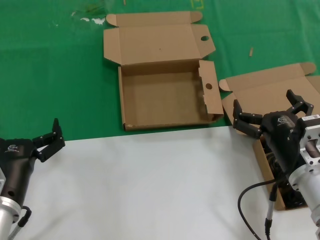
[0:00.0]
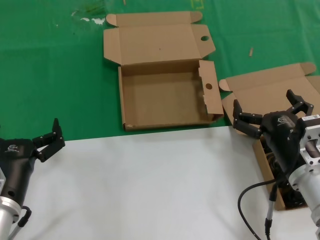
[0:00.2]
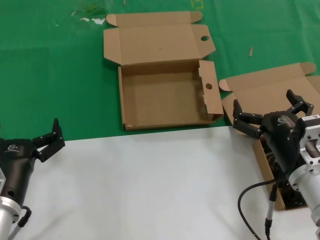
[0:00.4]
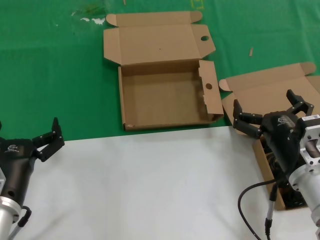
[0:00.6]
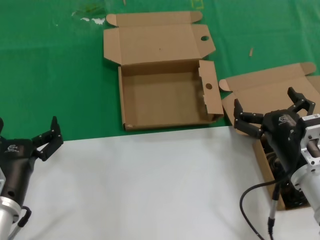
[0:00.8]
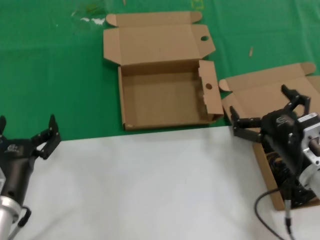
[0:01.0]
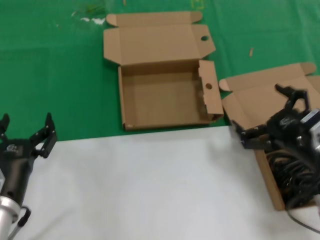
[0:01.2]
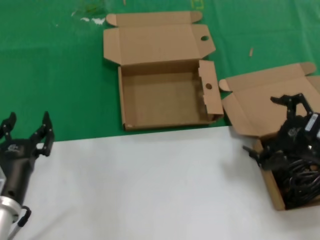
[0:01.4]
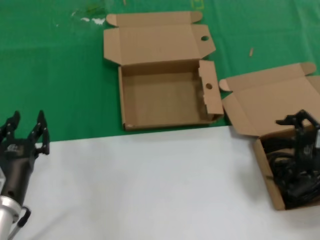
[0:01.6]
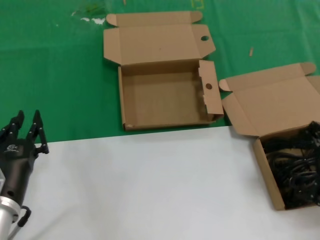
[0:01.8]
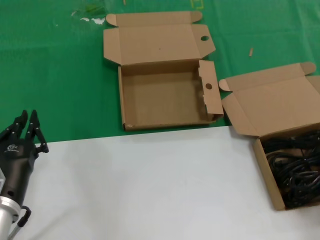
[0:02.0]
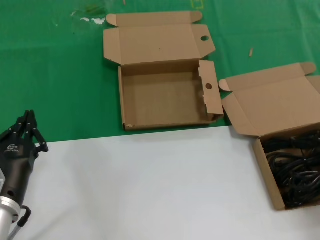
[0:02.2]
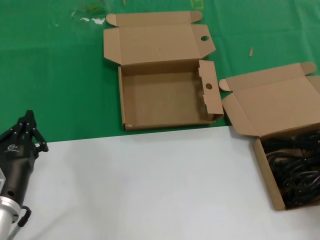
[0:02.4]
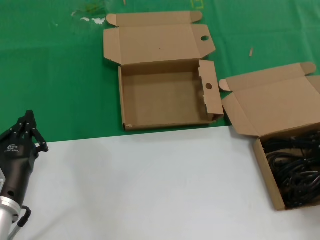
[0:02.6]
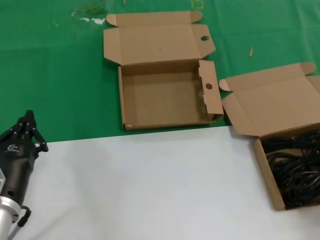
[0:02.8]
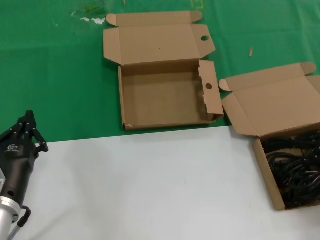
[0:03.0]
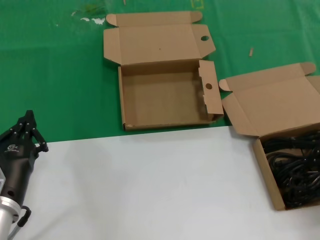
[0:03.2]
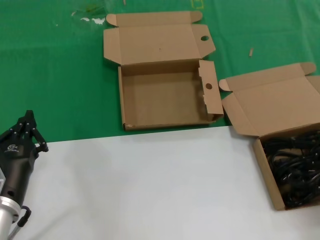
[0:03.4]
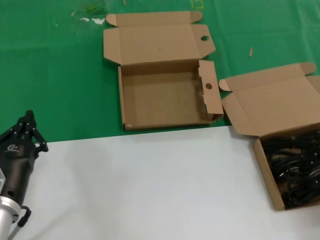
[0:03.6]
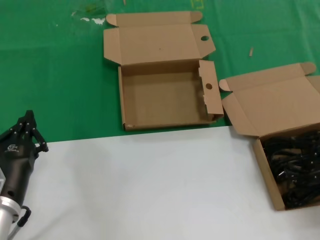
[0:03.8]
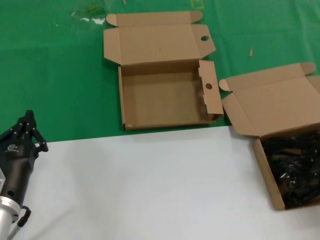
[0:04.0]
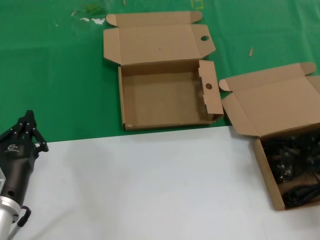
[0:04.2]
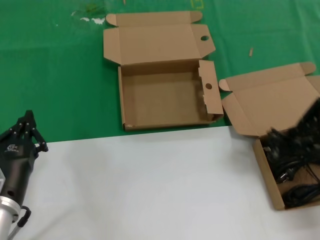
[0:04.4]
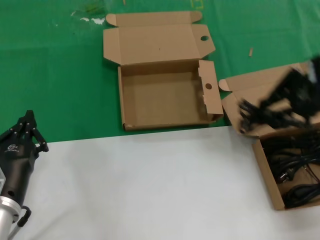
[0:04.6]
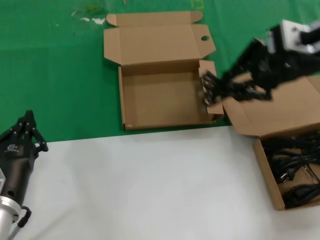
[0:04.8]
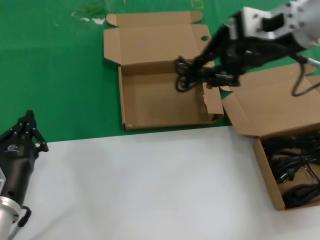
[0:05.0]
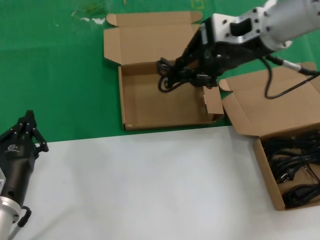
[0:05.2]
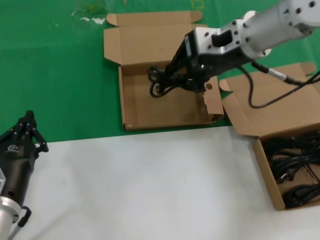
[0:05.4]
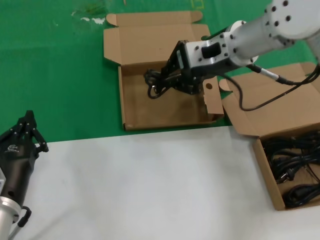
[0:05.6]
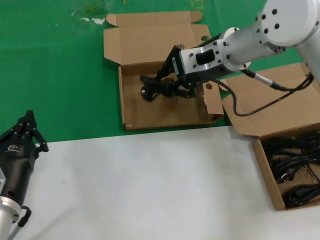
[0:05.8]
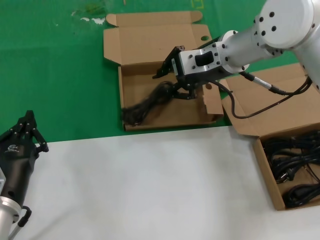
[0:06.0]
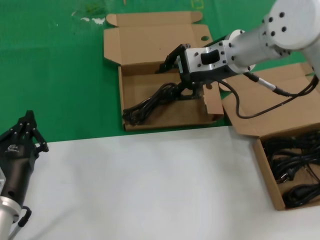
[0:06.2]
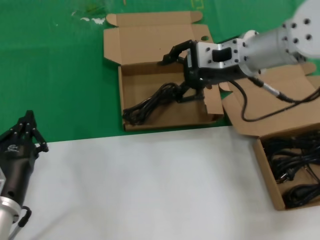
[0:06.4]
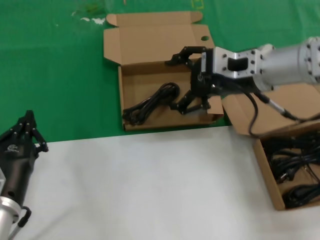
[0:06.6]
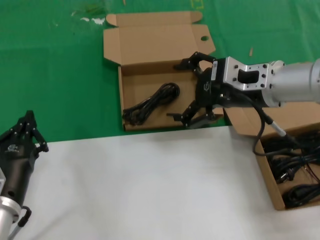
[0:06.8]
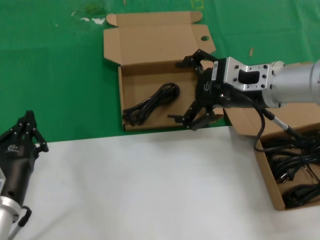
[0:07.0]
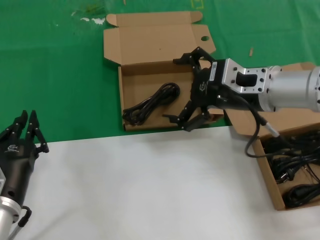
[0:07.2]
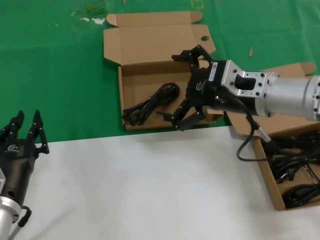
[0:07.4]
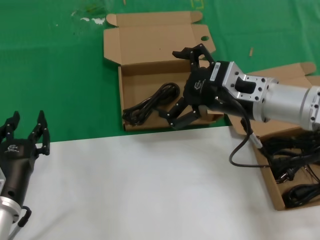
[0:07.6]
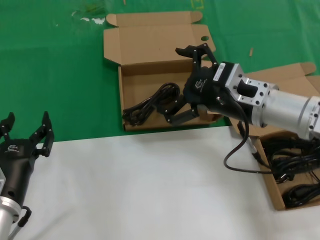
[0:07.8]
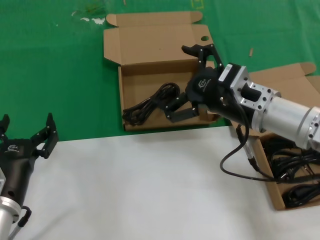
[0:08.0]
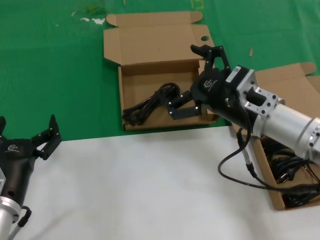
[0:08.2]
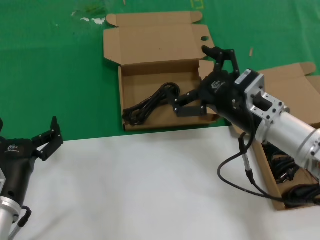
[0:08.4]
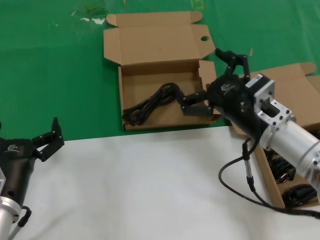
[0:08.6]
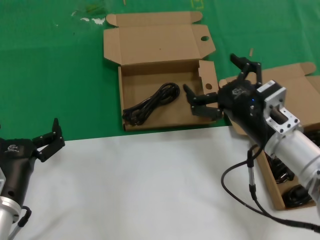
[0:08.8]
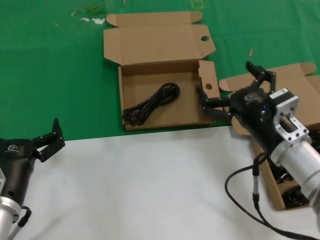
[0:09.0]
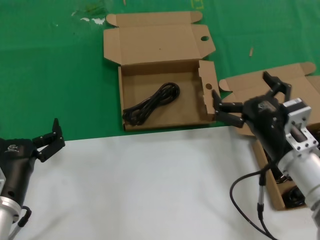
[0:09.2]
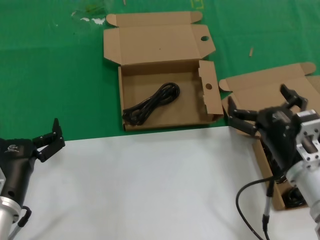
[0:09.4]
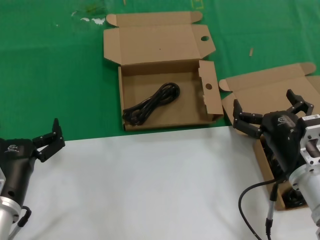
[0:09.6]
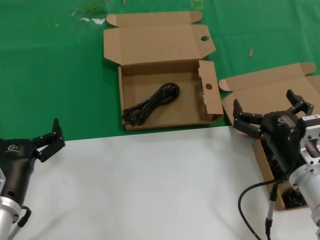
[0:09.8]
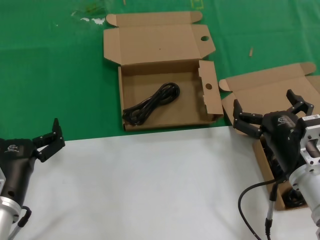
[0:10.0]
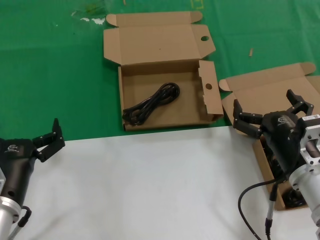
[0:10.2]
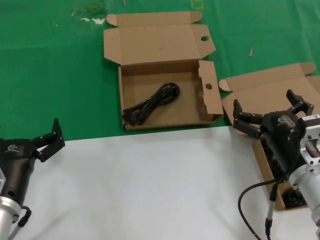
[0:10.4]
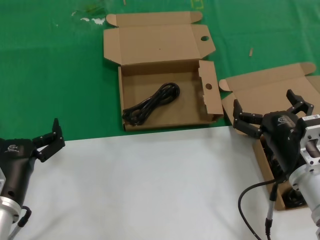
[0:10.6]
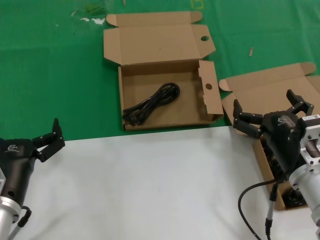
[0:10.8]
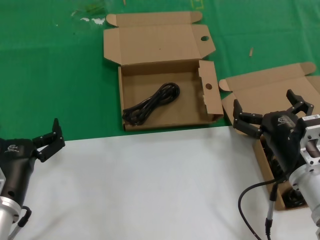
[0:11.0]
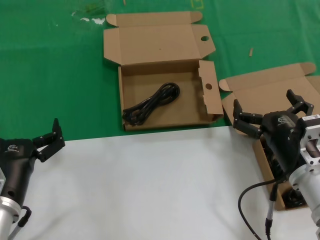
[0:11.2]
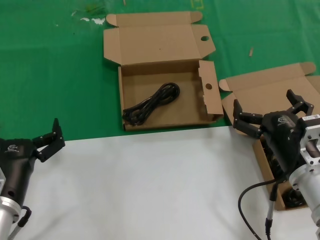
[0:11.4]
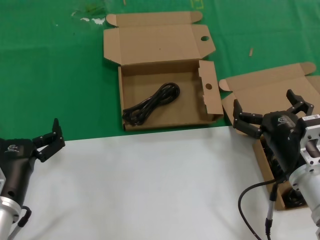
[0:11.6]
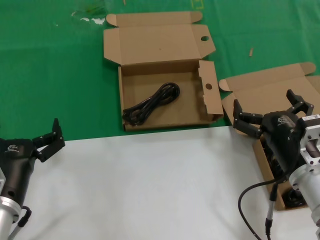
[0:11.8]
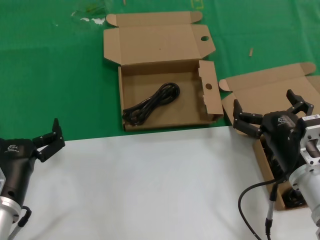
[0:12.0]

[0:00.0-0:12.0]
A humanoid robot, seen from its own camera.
Task of the whole recording: take the parts from the box containing them and put them into an empty box.
Step, 0:00.0 to 0:03.8: Grasp the data cable.
Step, 0:04.0 to 0:06.2: Place the data cable in the another box.
0:00.0 to 0:01.6: The right hand shifts about 15 cm to the right and upward.
0:01.6 to 0:03.0: The right hand moves approximately 5 cm.
0:03.0 to 0:04.4: The right hand travels upward by some 10 cm.
0:04.4 to 0:06.0: The right hand heads to the left and forward, covering about 25 cm.
0:06.0 to 0:07.6: The right hand travels backward and downward by about 10 cm.
0:07.6 to 0:09.0: The right hand shifts approximately 10 cm downward and backward.
0:09.0 to 0:10.4: The right hand shifts by some 5 cm.
0:10.4 to 0:12.0: Both hands stay put.

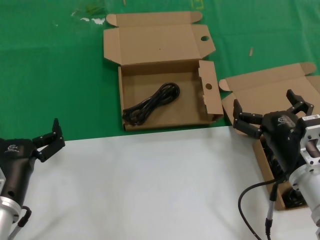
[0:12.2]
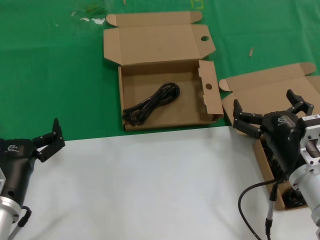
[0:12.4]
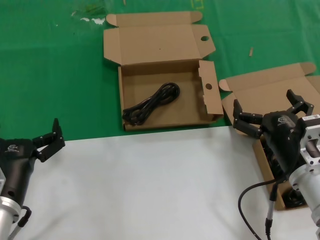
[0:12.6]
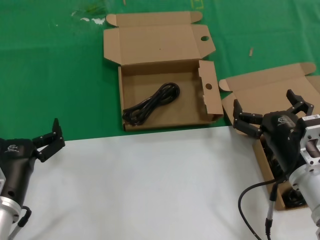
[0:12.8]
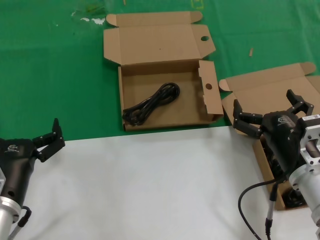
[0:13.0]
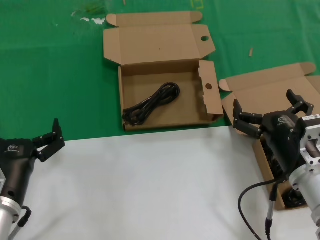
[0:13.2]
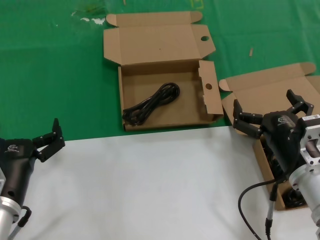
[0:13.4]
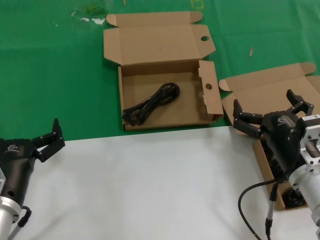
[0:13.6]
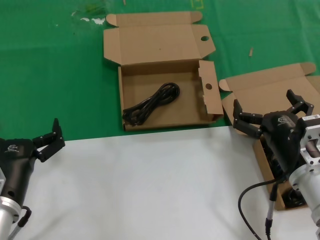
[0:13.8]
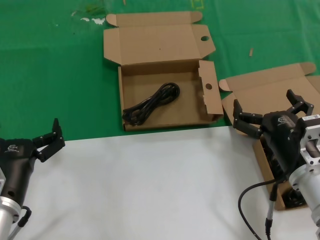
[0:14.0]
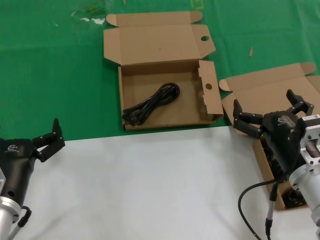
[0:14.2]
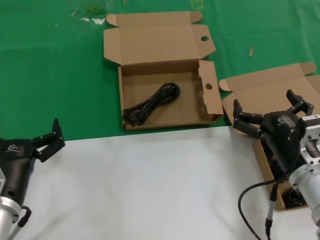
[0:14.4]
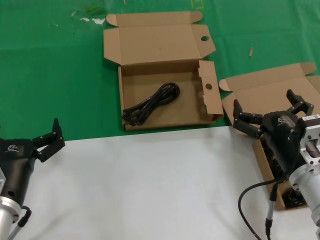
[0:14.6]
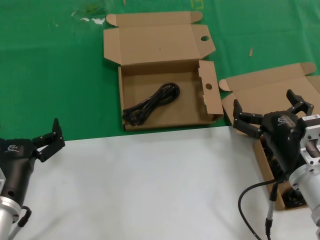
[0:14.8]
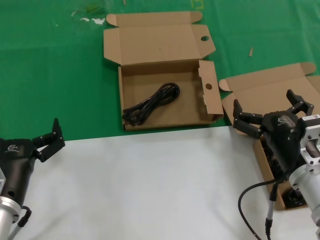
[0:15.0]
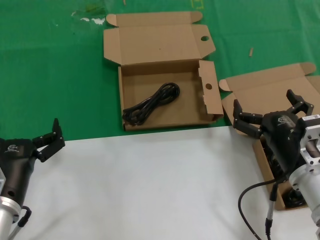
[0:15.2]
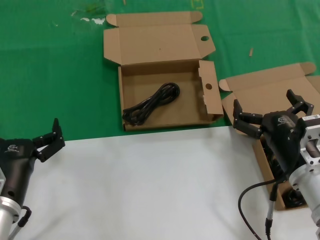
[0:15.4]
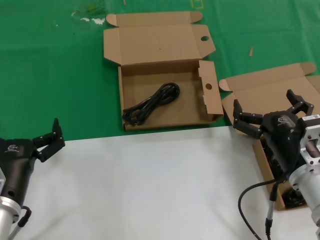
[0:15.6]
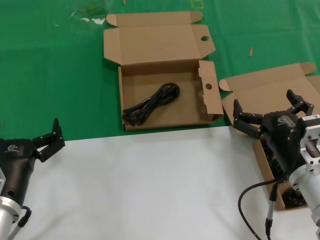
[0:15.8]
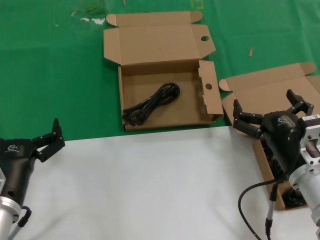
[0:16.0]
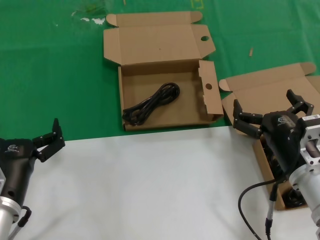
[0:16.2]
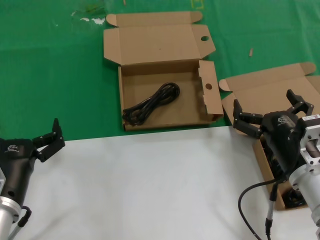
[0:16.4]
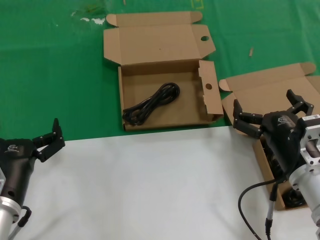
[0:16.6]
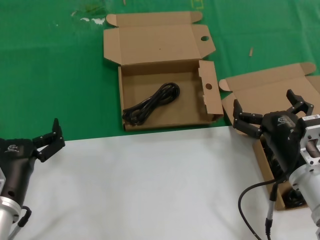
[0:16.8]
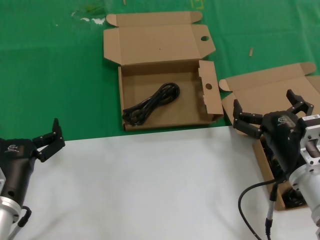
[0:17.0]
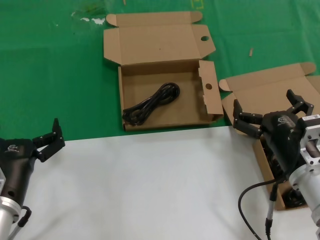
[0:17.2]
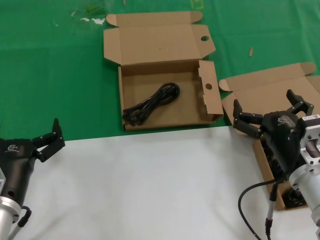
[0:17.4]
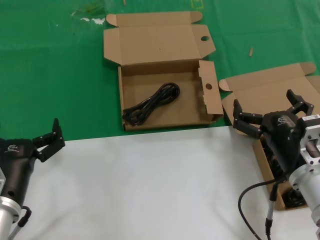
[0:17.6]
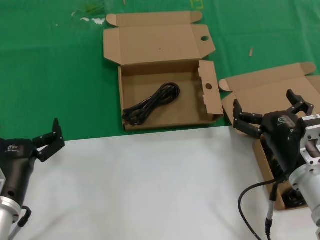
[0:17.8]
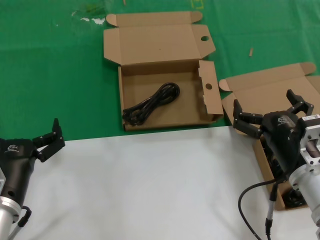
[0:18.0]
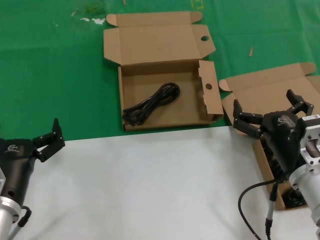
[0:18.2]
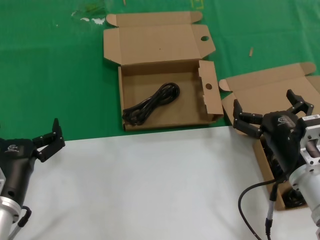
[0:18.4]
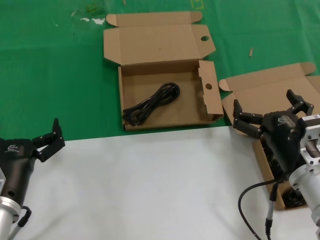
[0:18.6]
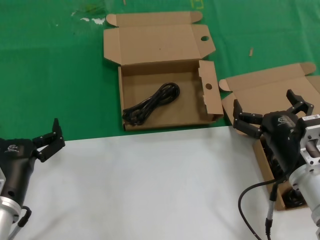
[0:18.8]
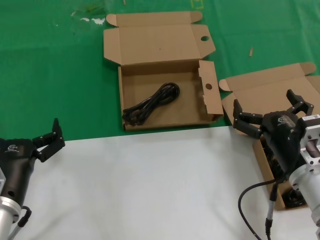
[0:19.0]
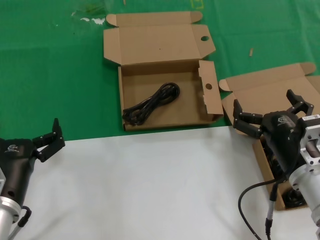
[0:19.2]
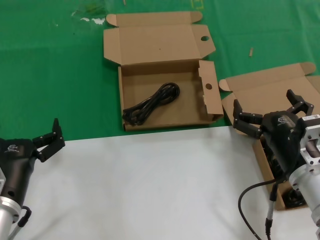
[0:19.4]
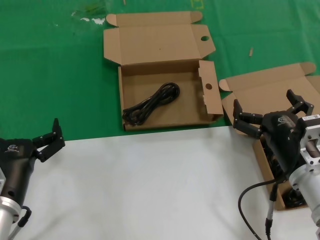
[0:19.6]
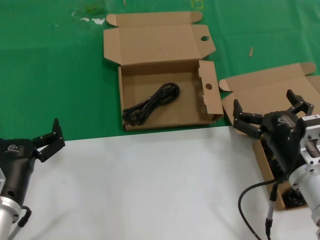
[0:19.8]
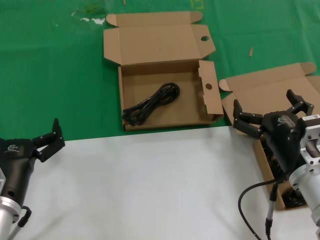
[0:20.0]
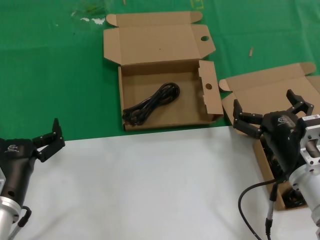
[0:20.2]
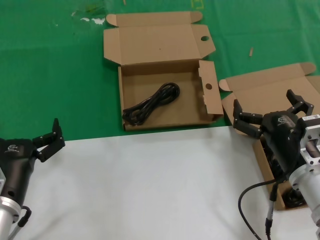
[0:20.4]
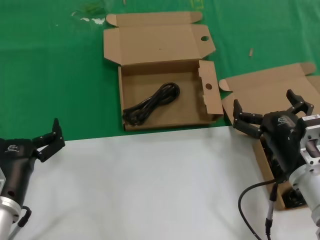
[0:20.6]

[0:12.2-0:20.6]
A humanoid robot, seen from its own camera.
Task of the whole recording: take the parts from the box containing them and put them into an empty box.
0:12.2 to 0:20.6: Both hands stay about where they are.

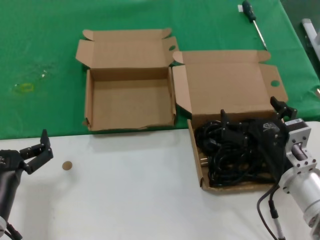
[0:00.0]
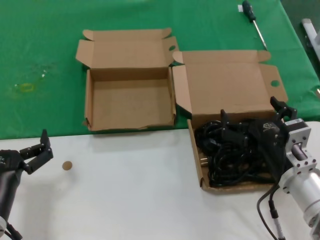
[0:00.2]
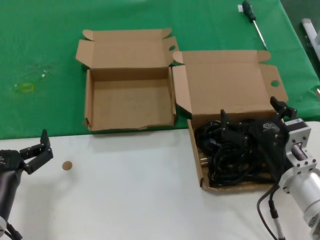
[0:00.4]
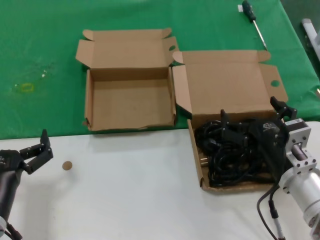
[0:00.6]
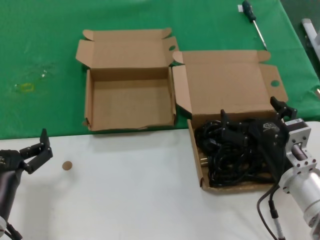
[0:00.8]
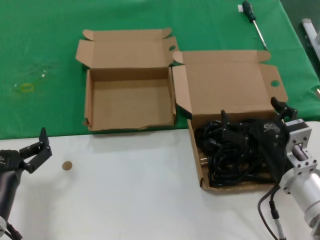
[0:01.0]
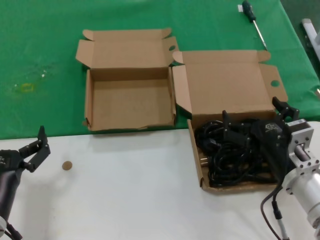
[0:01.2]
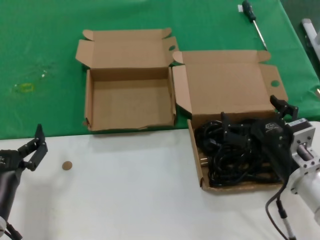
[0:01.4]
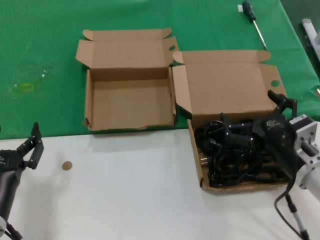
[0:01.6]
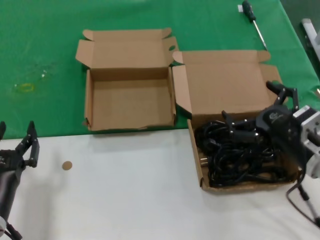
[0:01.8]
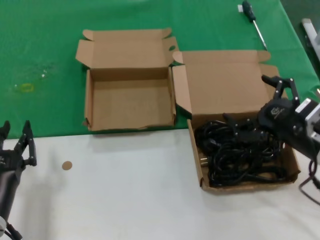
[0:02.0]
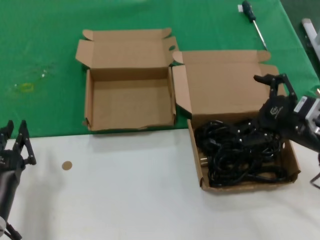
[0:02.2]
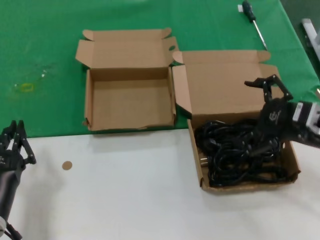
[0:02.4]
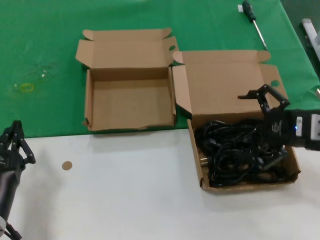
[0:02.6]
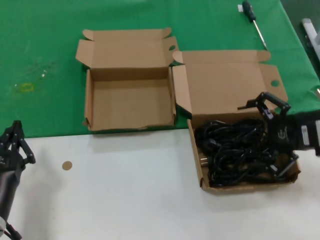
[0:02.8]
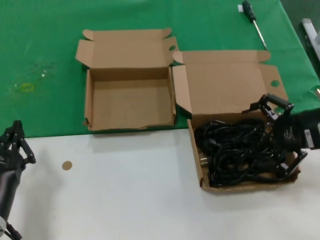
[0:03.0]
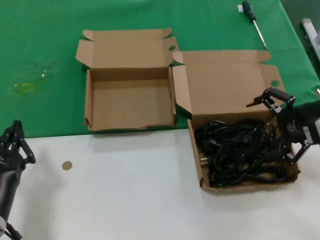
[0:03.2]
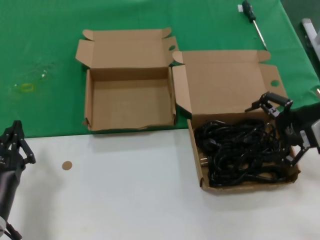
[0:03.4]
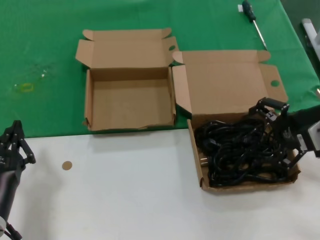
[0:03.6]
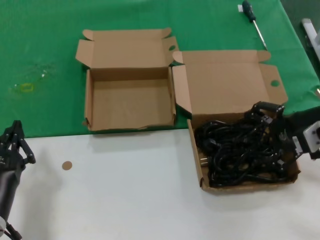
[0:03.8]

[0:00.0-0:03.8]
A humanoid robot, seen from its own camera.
Task of the whole recording: take the parts from the box containing them and put them into an empty box.
0:00.0 to 0:01.2: Both hands stay put.
0:01.2 to 0:02.6: The right hand moves upward, to the right and forward, approximately 15 cm.
